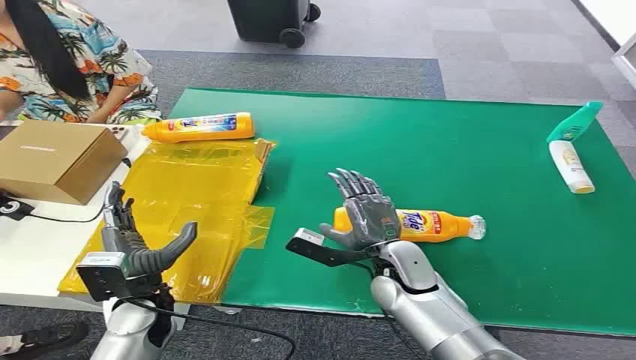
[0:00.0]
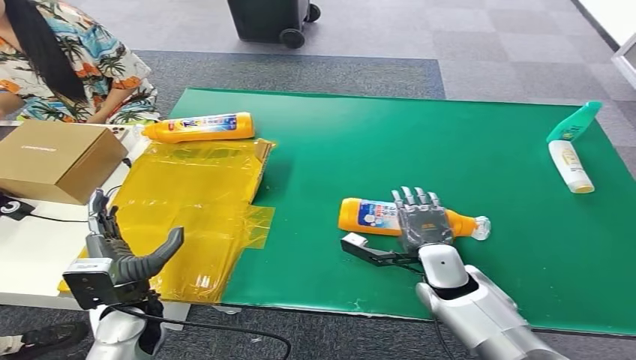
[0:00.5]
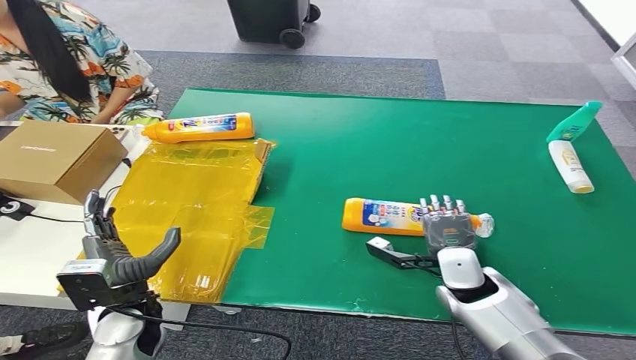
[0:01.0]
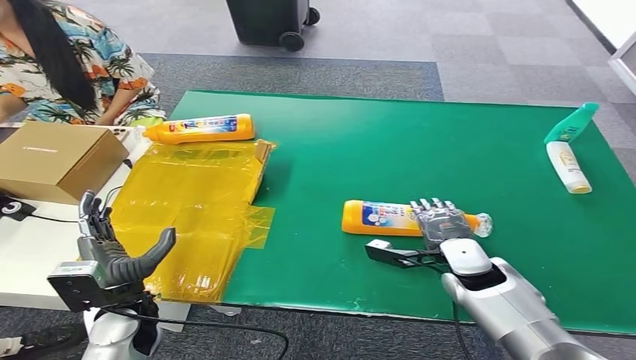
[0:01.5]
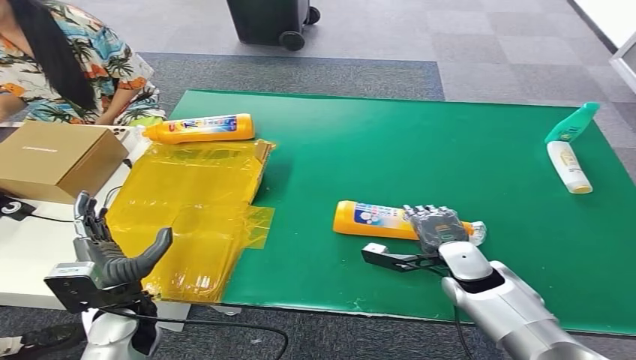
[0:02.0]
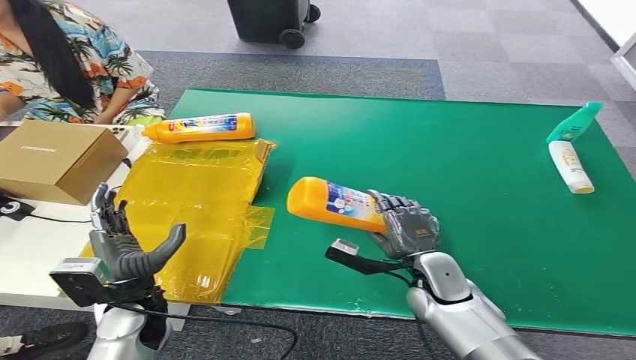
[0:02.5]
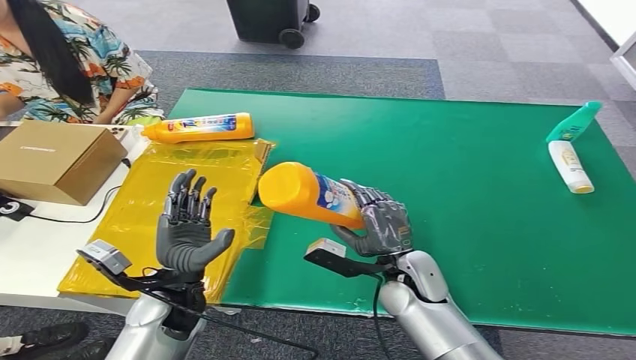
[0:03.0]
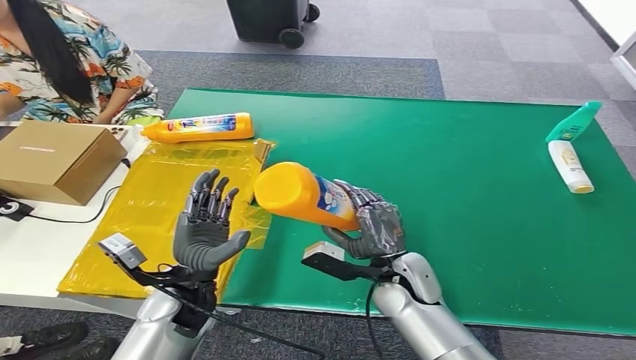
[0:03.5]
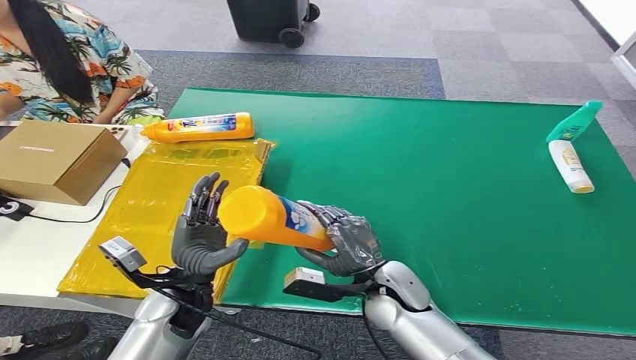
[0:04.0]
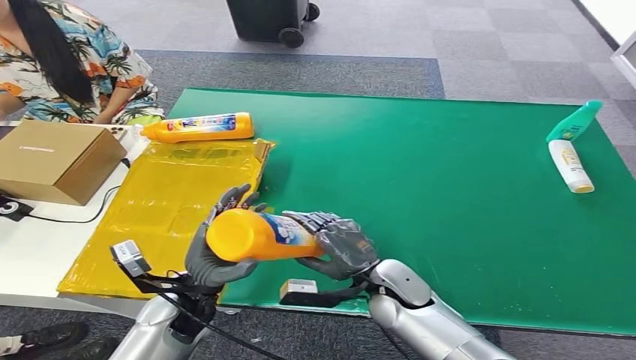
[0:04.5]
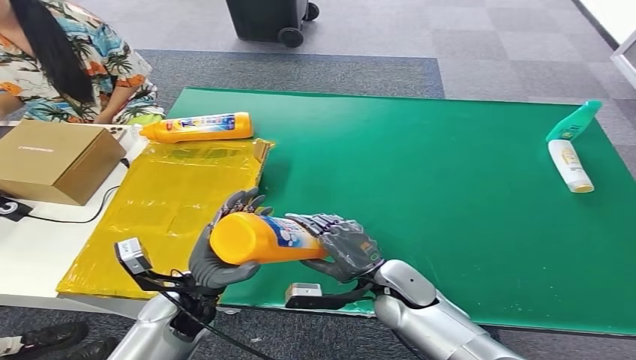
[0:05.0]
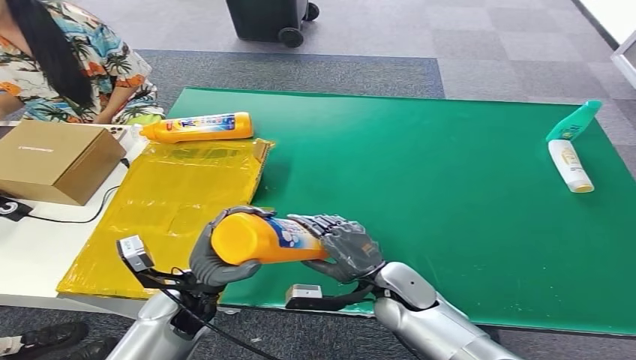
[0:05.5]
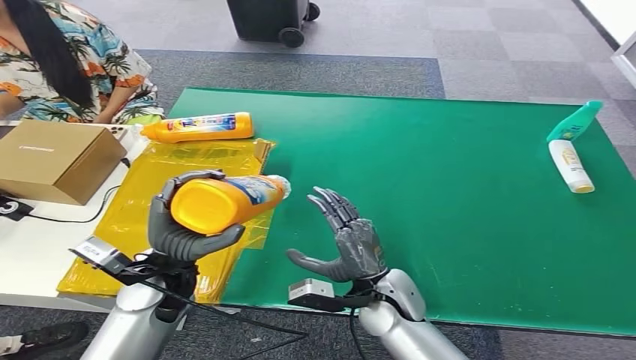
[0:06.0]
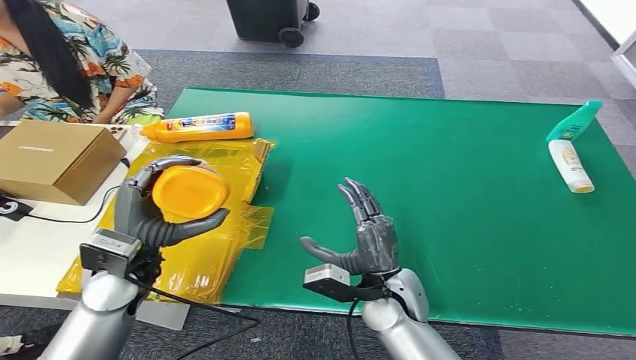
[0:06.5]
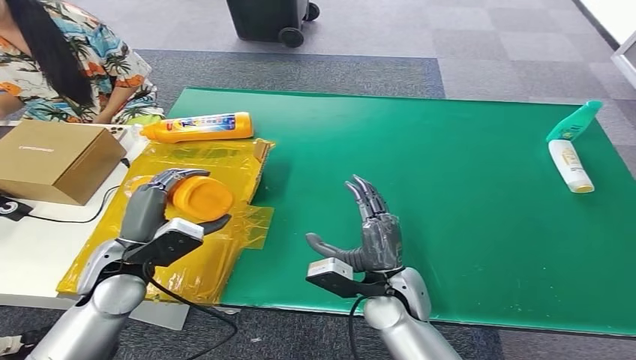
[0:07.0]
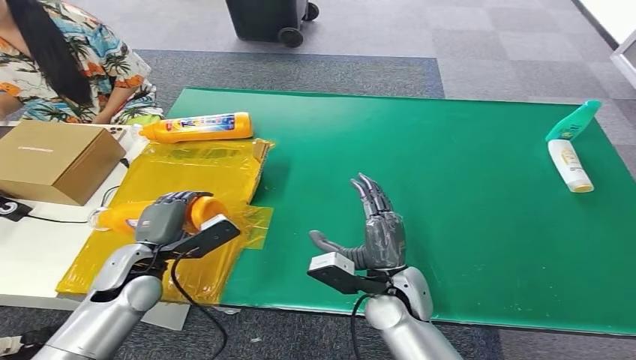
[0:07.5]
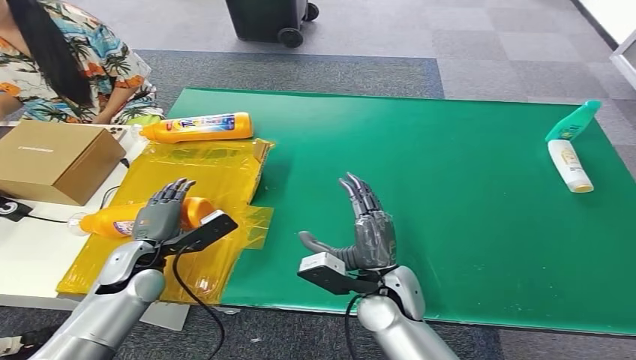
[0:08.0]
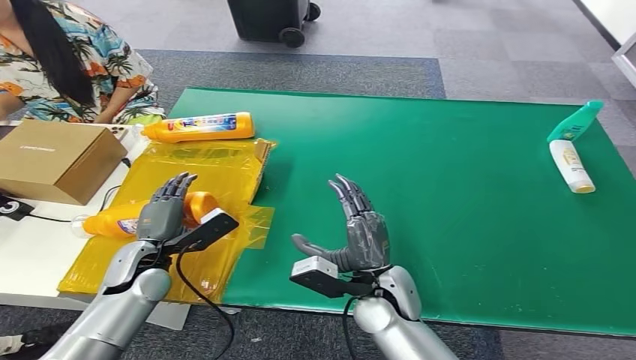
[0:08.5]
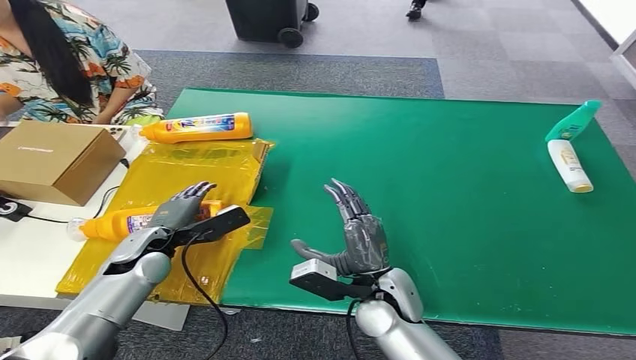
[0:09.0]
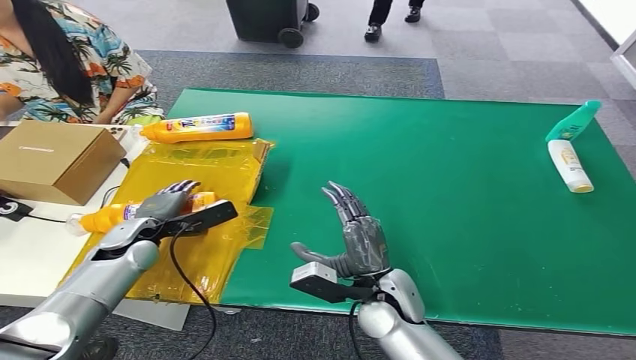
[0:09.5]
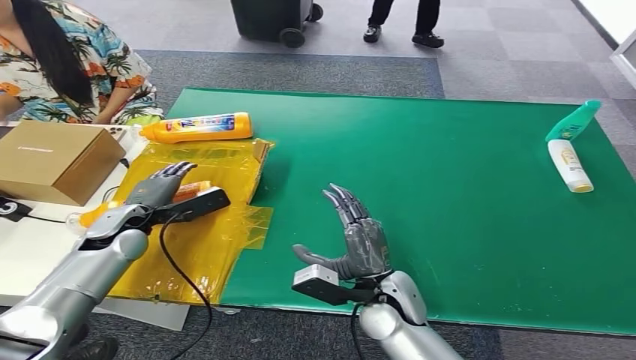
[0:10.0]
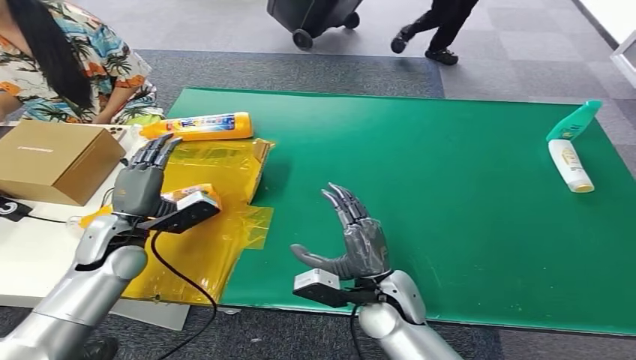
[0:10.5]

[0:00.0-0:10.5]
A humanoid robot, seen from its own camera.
Step, 0:00.0 to 0:02.5: Pick up the bottle from the table.
Step, 0:03.0 to 0:10.5: Turn the bottle to the front side.
0:04.0 to 0:06.5: The left hand is displaced upward and to the left by approximately 10 cm.
0:06.5 to 0:08.5: The left hand heads downward, covering about 10 cm.
